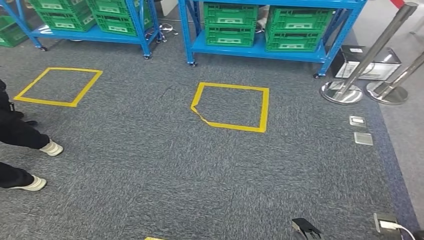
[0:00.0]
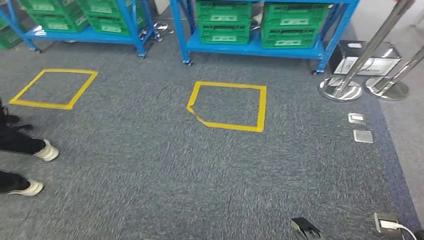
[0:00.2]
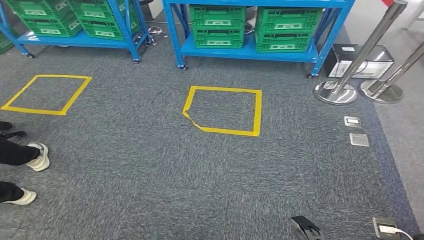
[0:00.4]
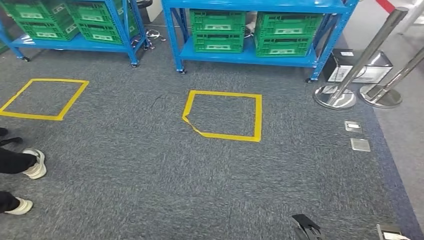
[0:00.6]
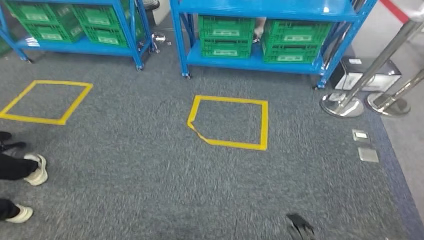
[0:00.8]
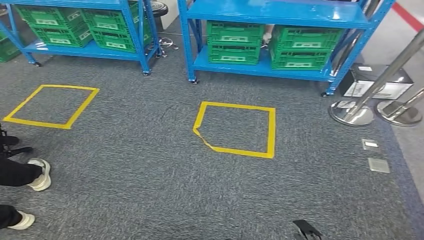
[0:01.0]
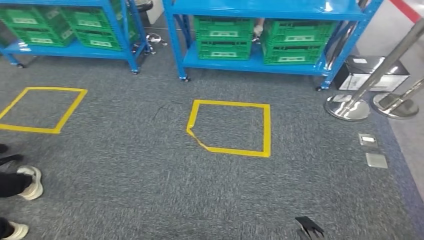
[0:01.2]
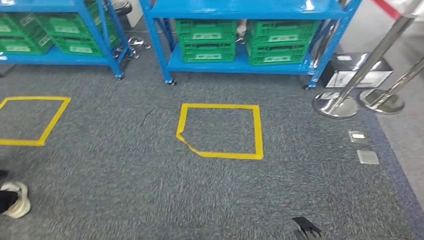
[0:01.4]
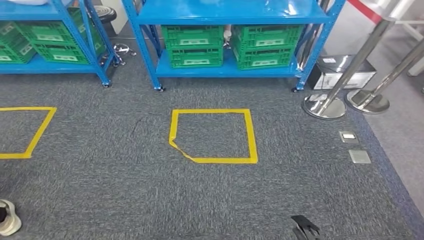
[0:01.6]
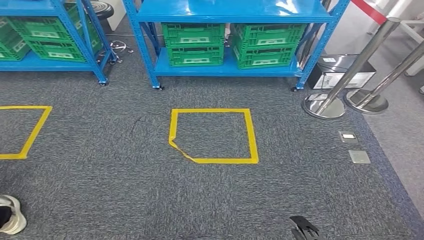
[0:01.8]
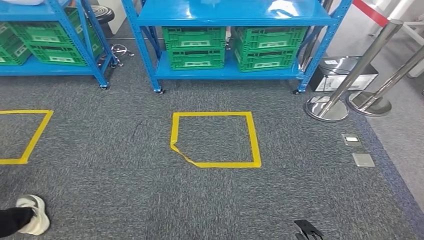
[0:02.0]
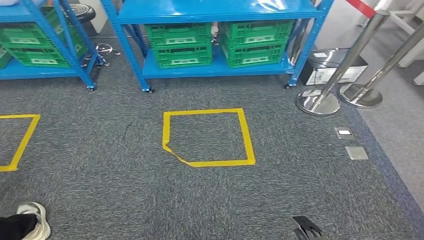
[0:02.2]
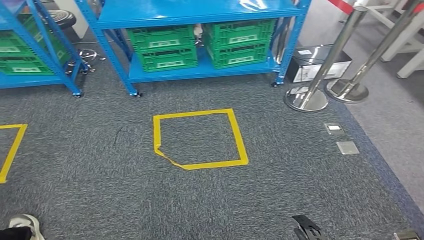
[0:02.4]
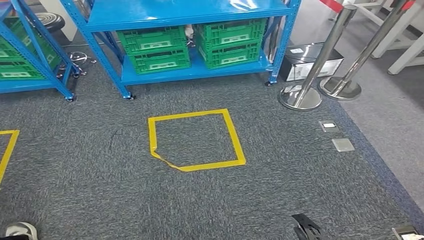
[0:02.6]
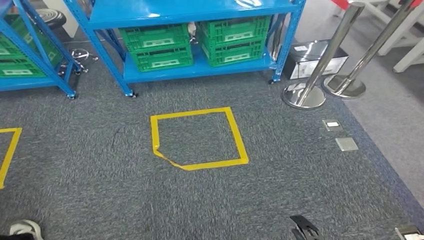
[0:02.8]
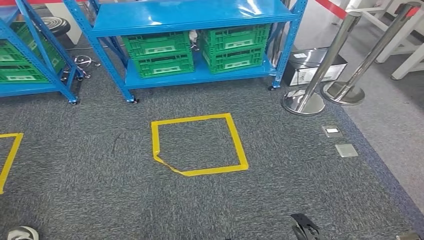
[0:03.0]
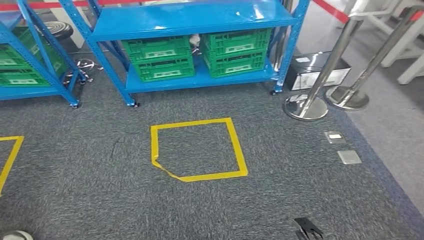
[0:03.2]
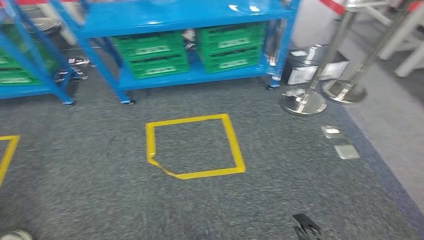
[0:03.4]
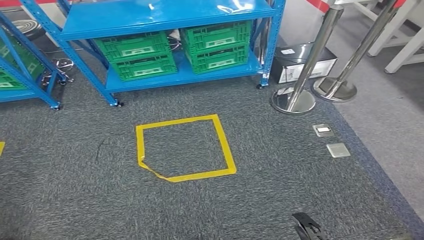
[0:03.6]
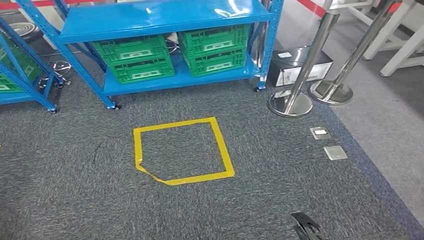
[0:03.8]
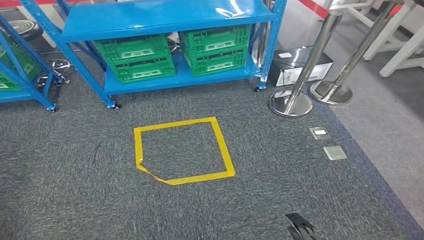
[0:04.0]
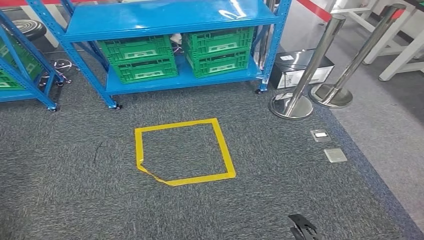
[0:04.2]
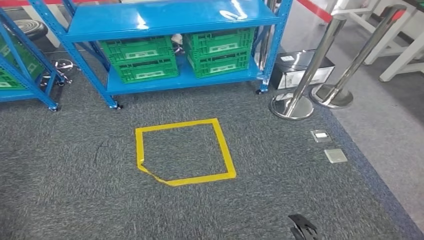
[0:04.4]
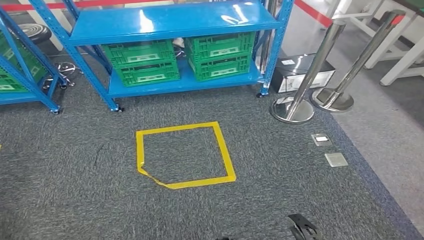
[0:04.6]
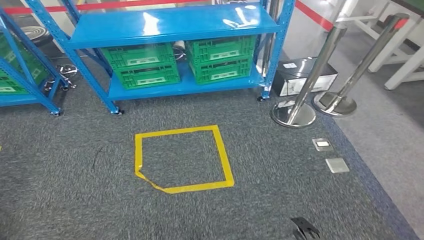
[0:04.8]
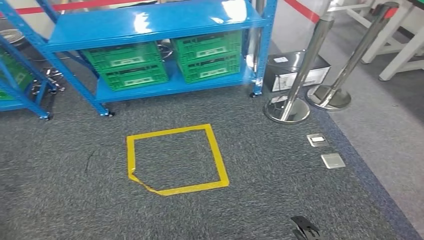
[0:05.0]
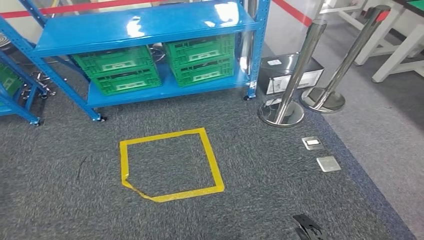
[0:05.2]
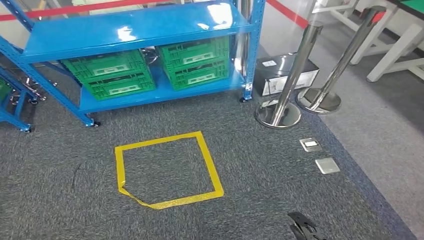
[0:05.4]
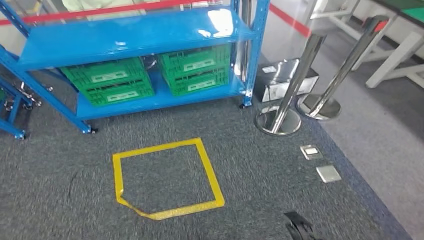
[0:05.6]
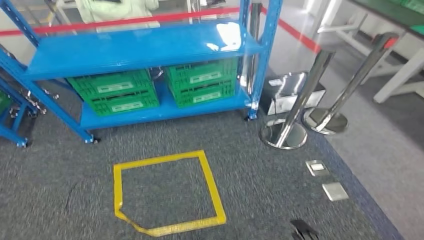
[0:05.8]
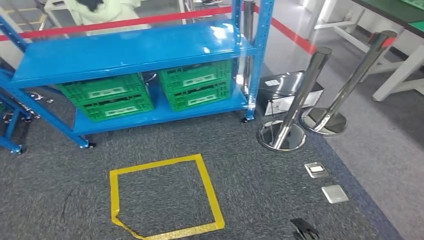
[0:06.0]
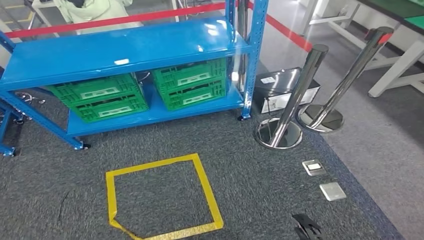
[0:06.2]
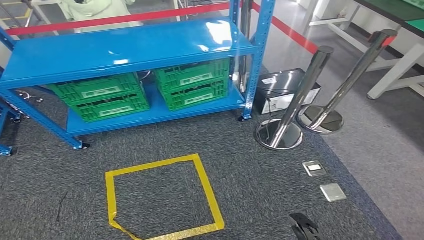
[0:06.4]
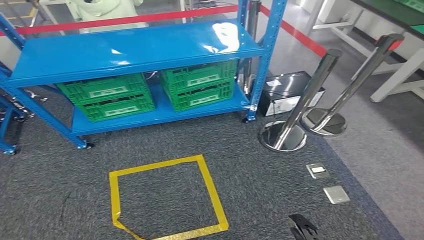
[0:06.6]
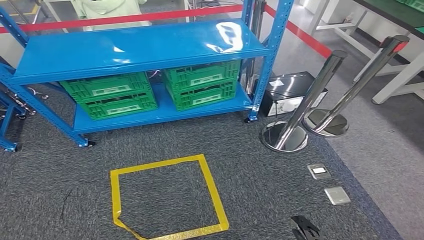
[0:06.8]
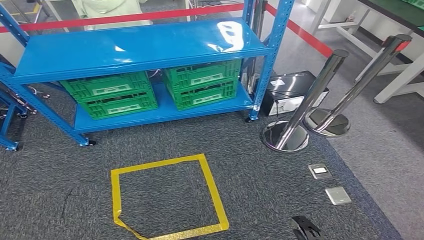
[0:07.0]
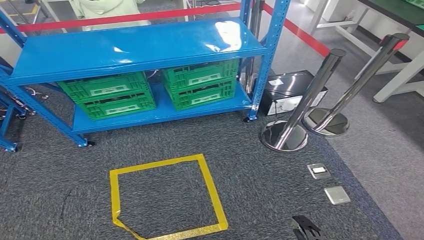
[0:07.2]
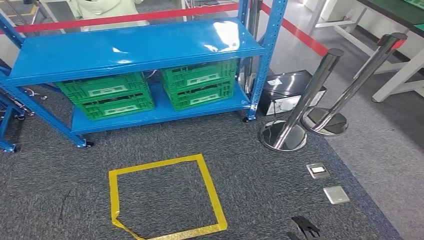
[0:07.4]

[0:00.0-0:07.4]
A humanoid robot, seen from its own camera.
Step, 0:00.0 to 0:07.2: Move to the initial position at the workbench.
0:06.0 to 0:07.4: Both hands stay about where they are.
